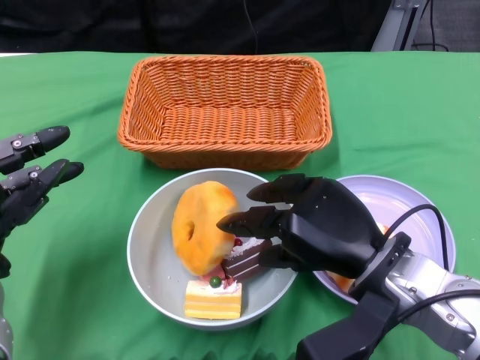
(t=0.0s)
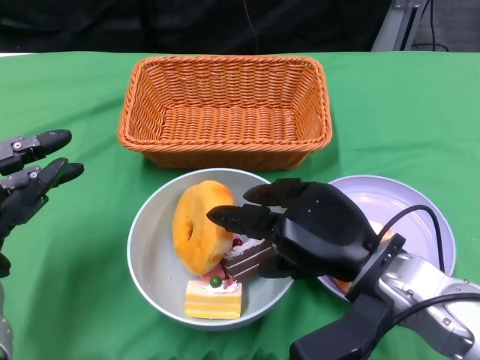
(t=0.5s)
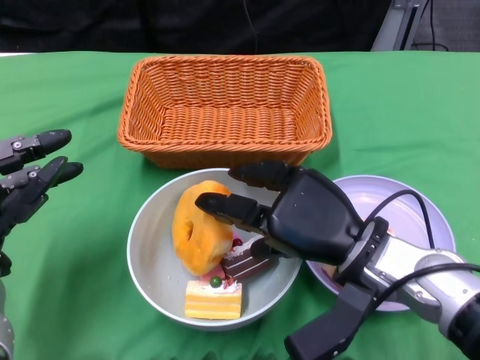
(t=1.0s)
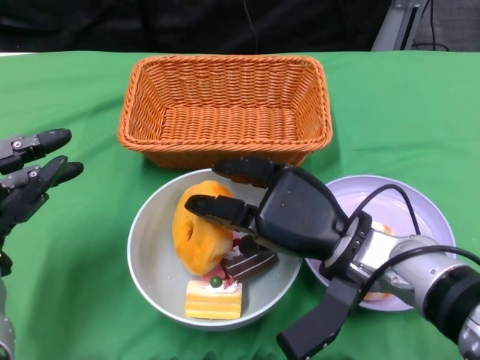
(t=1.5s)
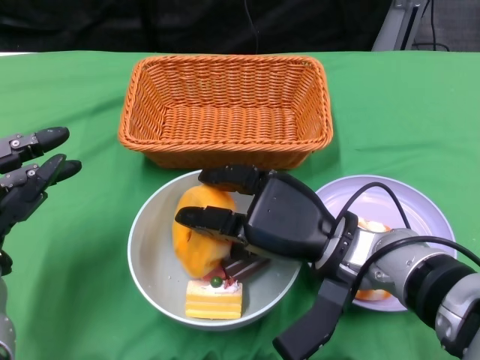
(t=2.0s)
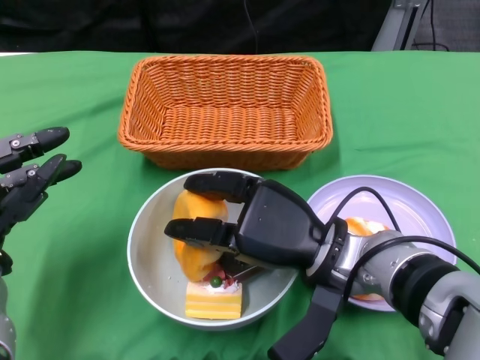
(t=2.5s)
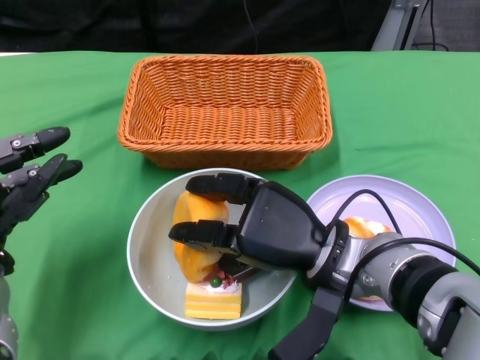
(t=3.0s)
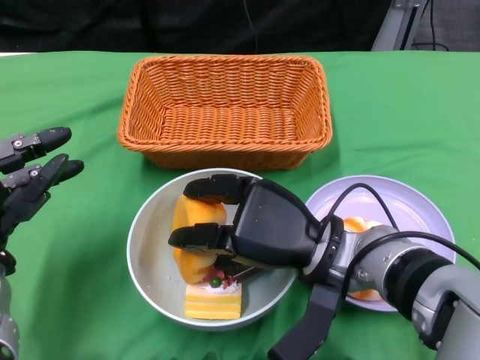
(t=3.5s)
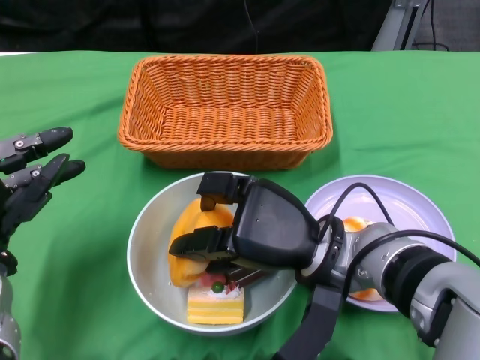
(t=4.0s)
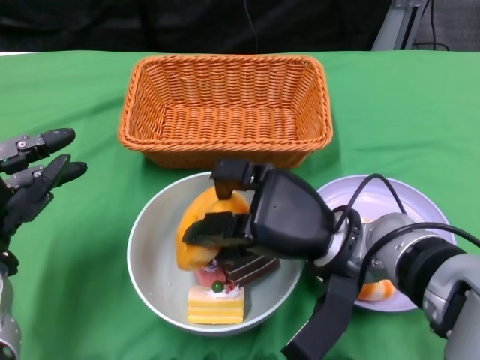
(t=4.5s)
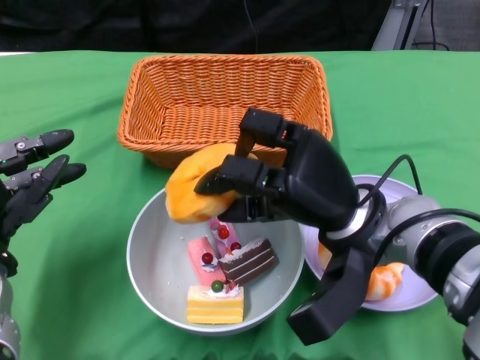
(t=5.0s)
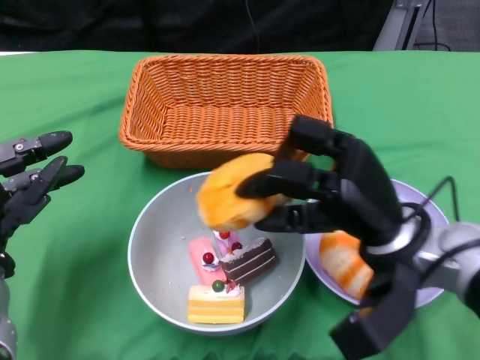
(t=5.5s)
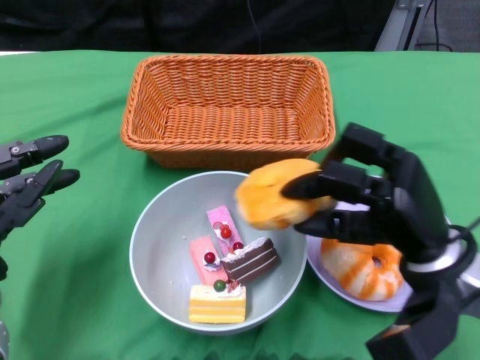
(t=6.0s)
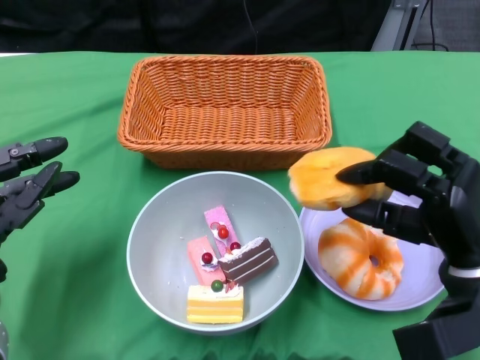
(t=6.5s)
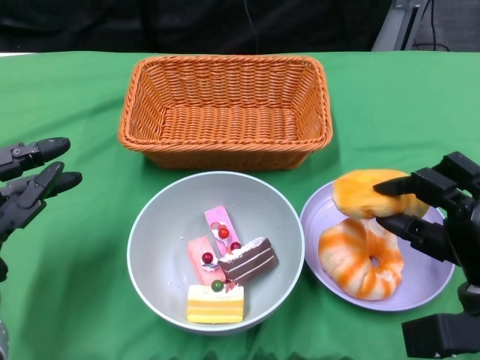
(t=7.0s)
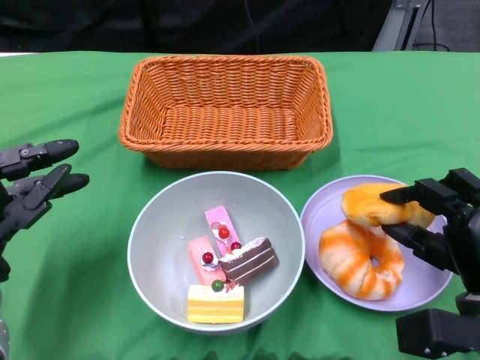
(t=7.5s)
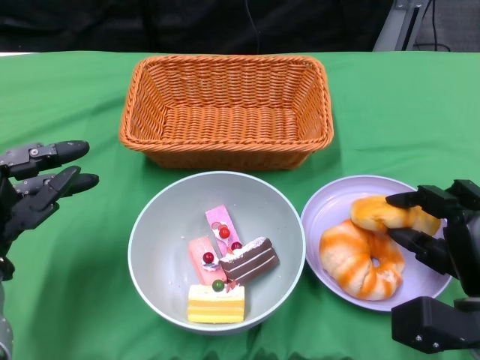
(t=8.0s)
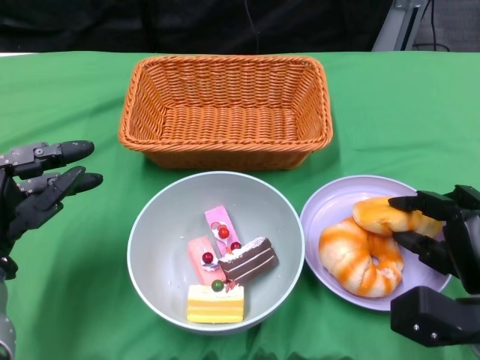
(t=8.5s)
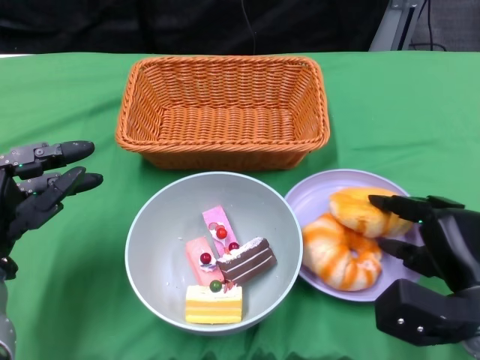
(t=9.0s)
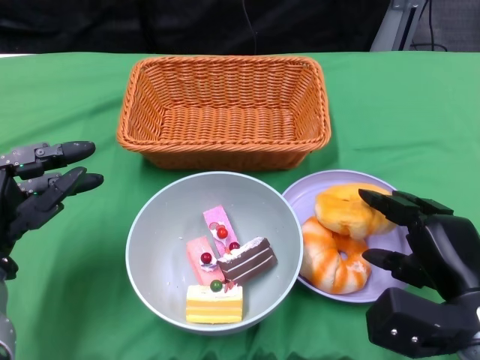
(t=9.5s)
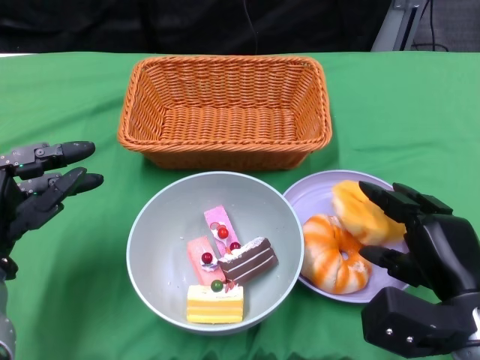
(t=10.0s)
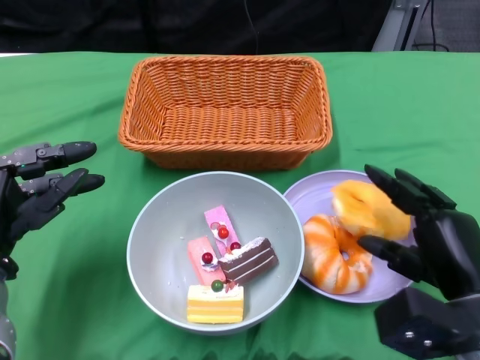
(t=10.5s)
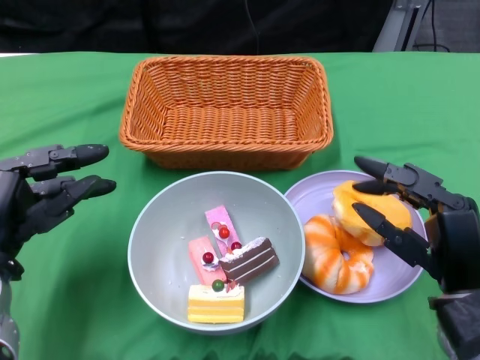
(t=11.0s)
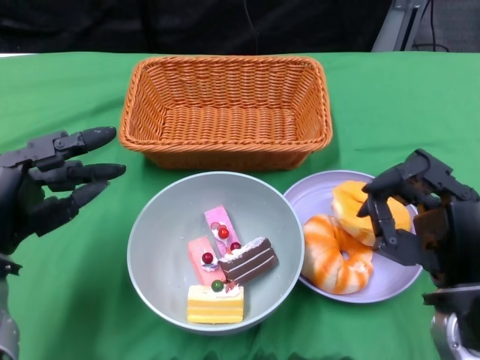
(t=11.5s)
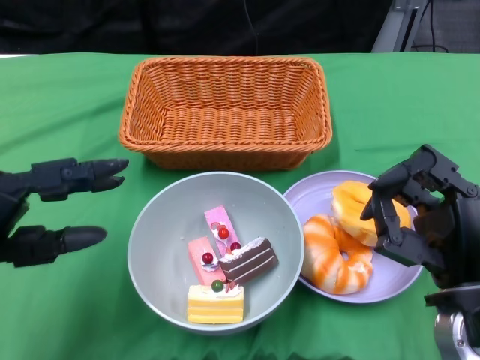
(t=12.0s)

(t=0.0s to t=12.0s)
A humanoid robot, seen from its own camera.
Step, t=0.0s - t=10.5s: Pick up the bread with the right gripper and place it on the plate.
t=0.0s - t=2.0s: The right hand moves about 5 cm.
t=2.0s - t=4.0s: The hands move only a little.
t=4.0s - t=6.0s: The right hand heads to the right, covering about 10 cm.
t=6.0s - t=8.0s: The right hand moves downward and to the right, roughly 10 cm.
t=10.0s - t=12.0s: The left hand moves roughly 5 cm.

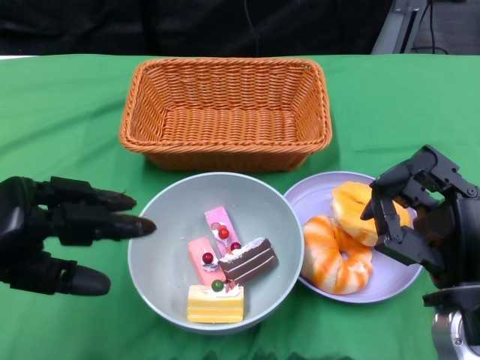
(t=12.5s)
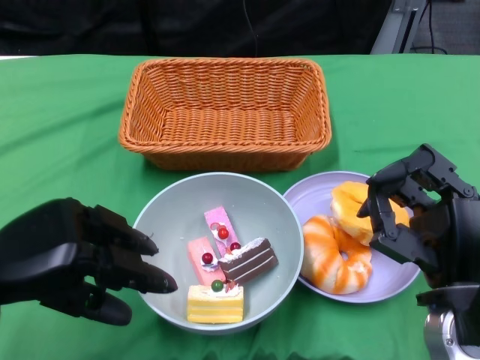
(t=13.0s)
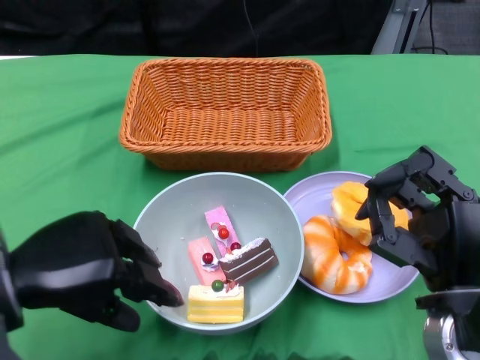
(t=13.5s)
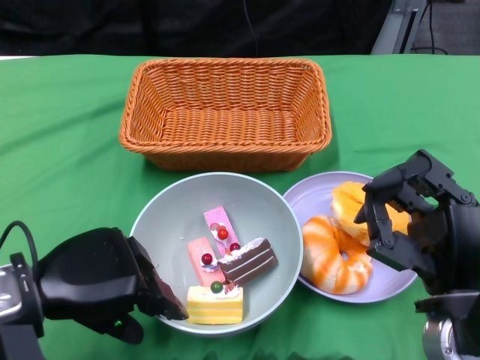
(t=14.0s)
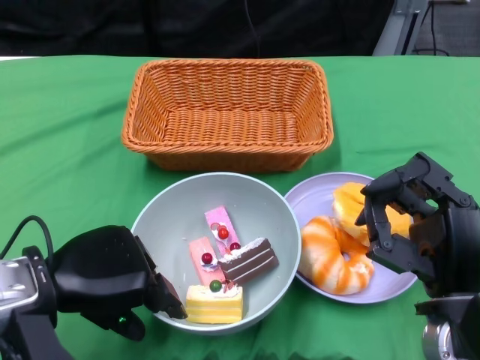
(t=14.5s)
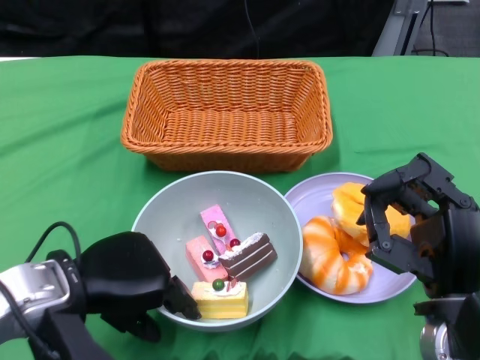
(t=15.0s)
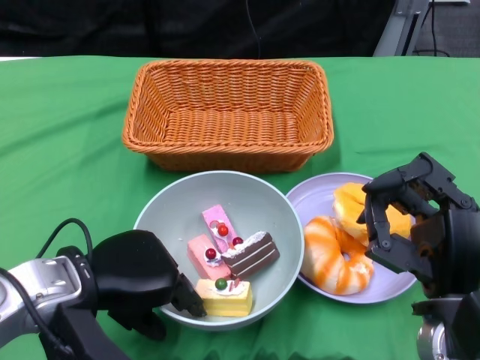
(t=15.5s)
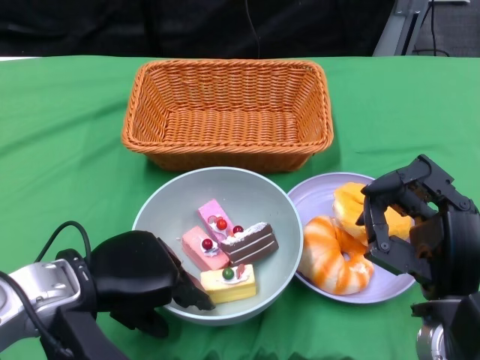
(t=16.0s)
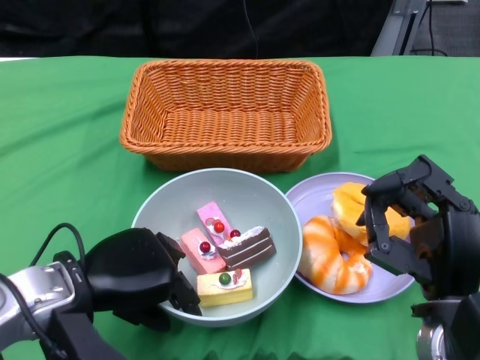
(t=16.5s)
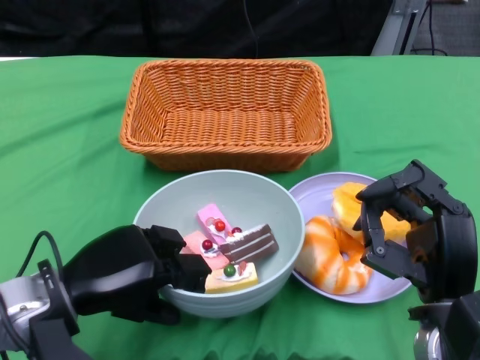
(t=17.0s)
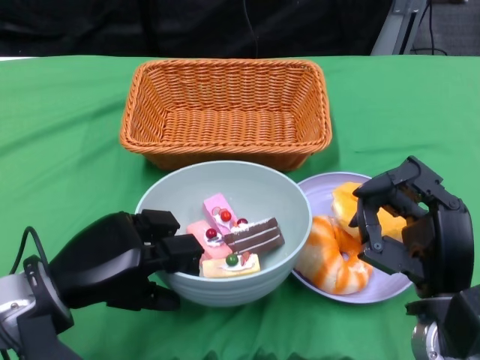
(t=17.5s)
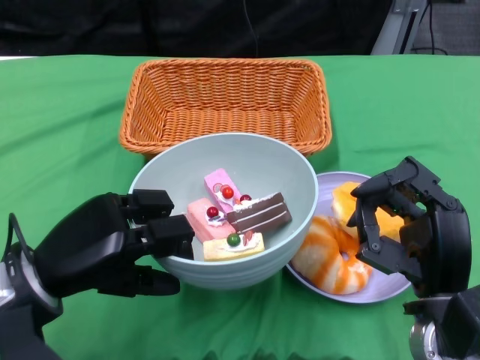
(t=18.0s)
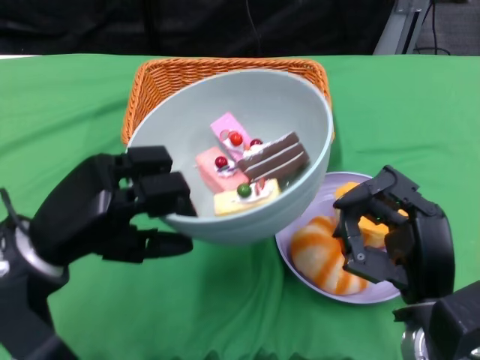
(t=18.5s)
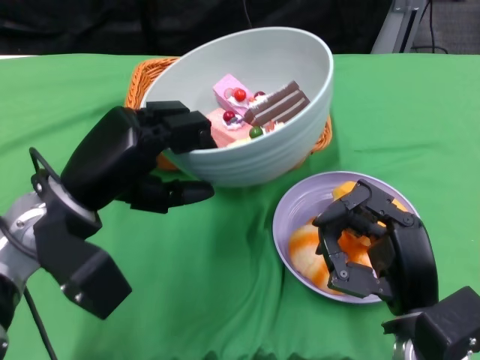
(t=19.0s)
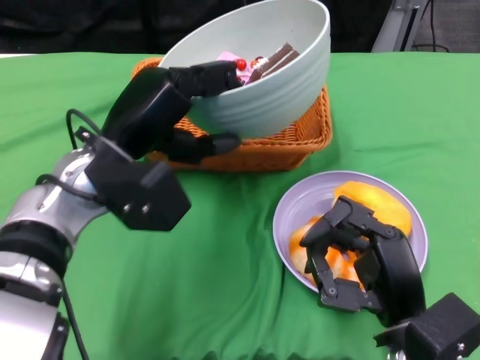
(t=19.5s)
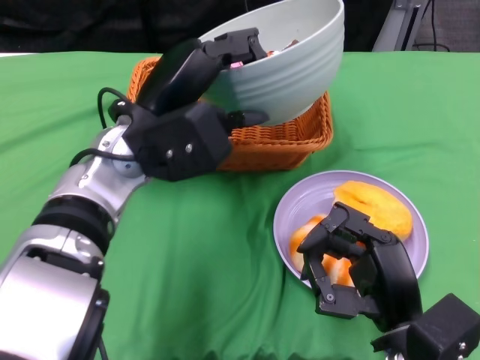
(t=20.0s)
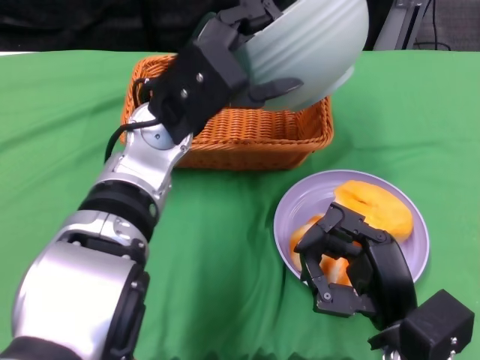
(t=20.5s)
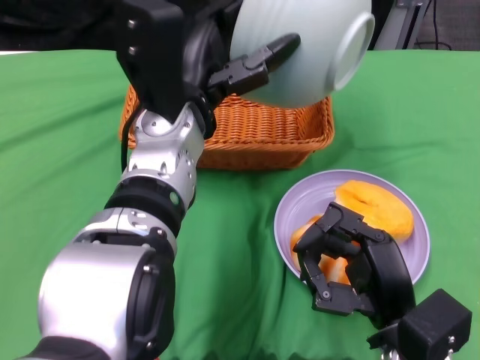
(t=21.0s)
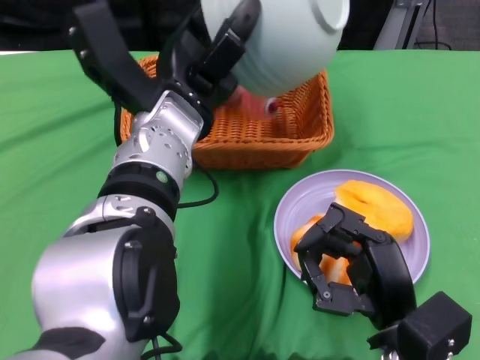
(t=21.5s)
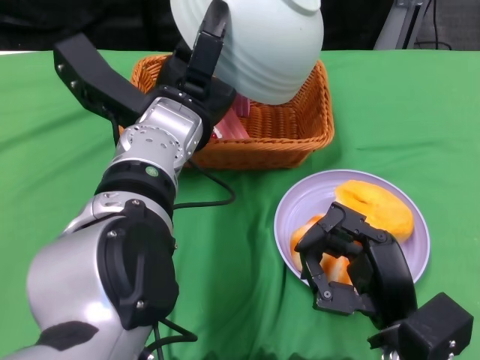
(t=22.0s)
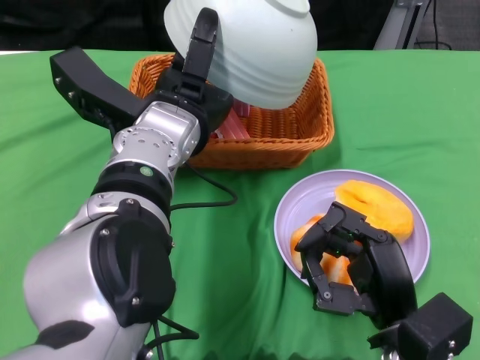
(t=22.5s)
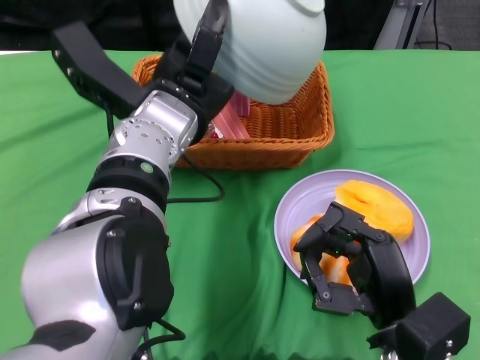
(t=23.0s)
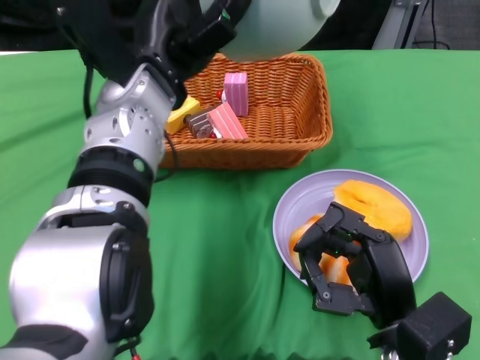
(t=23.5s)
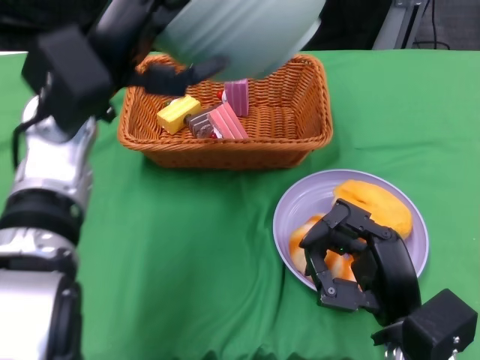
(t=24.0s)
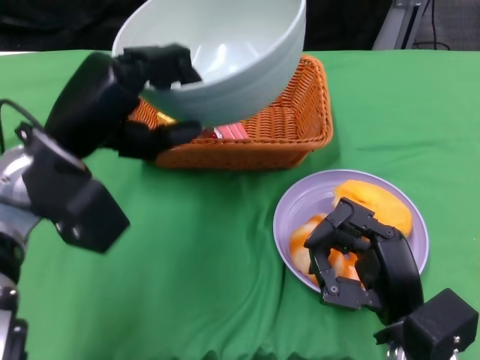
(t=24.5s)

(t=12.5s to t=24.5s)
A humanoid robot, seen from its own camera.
Step, t=12.5s - t=16.5s: Grasp the bowl with the left gripper.
Step, t=17.0s - t=23.0s: Pour the cake into the basket with the left gripper.
t=12.5s - t=14.5s: The left hand goes roughly 5 cm to the right.
t=14.5s - t=16.5s: The hands make only small movements.
t=18.5s - t=20.5s: The left hand moves to the right, forward and upward, roughly 15 cm.
t=22.5s - t=24.5s: The left hand goes approximately 10 cm to the left.

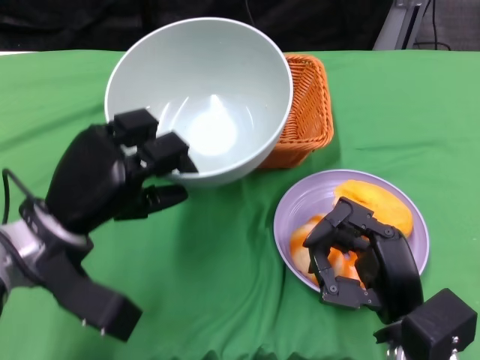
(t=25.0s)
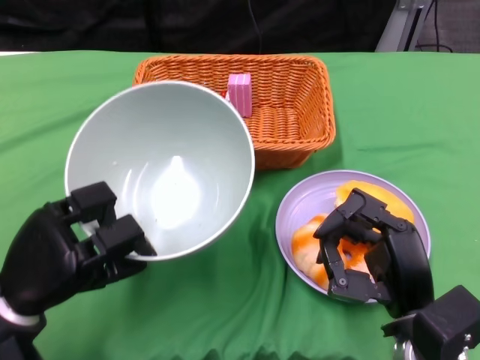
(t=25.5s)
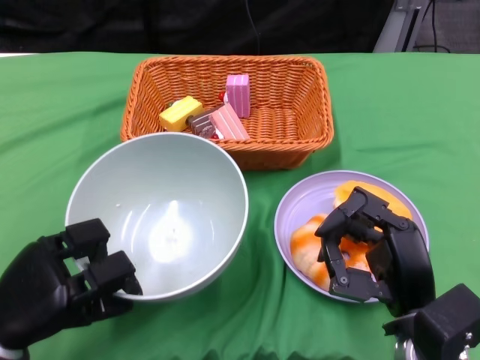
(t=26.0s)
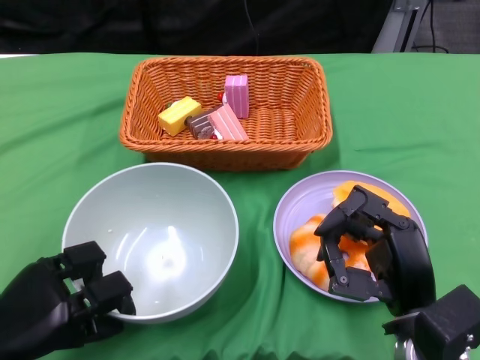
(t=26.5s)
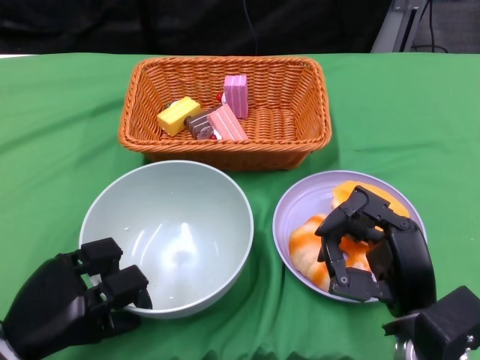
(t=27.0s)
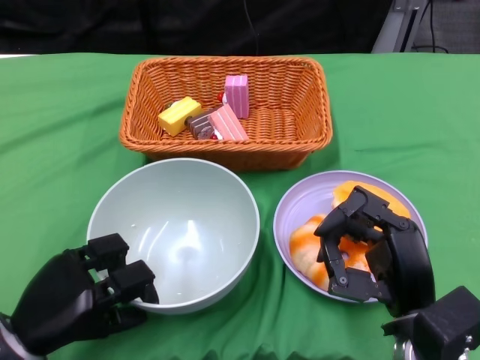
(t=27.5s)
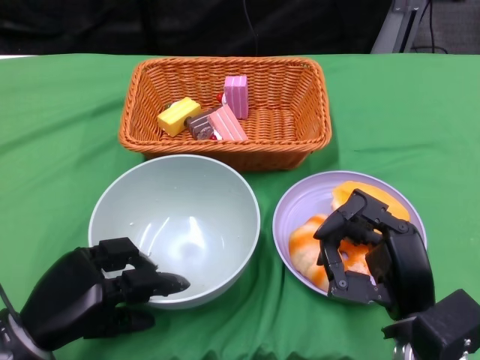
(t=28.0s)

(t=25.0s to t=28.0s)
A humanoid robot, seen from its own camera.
t=25.0s - t=26.5s: The left hand heads backward, downward and to the left, covering roughly 15 cm.
t=26.5s - t=28.0s: The hands move only a little.
